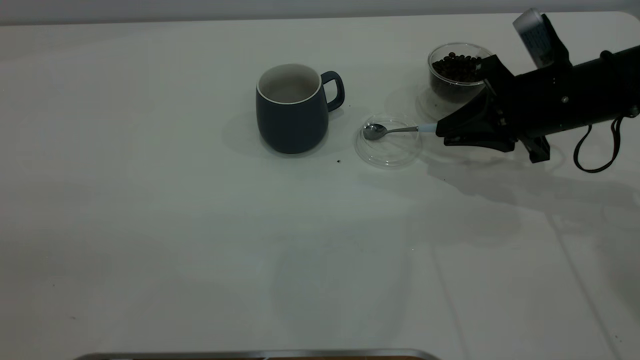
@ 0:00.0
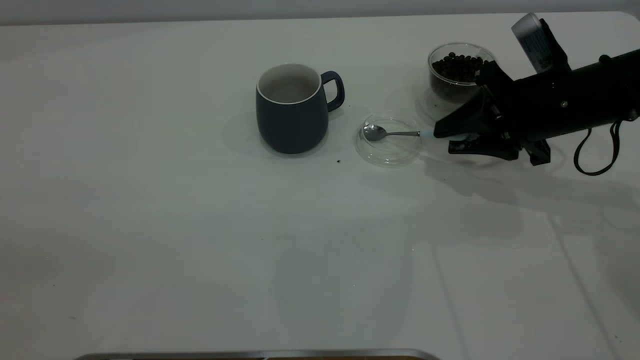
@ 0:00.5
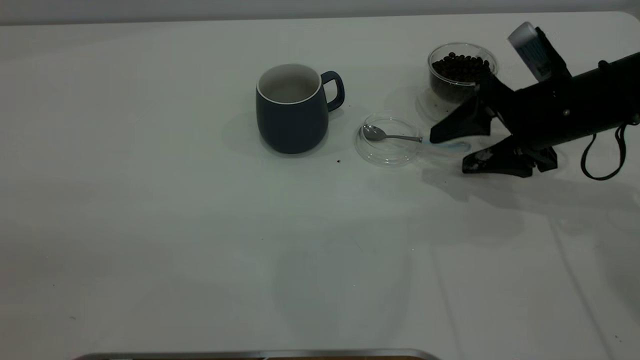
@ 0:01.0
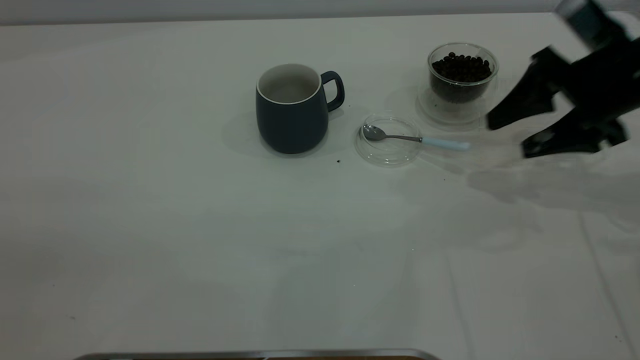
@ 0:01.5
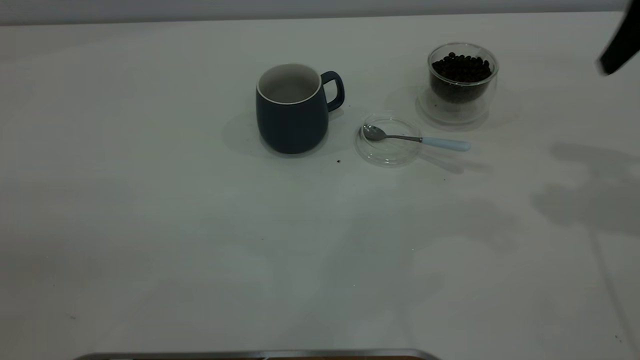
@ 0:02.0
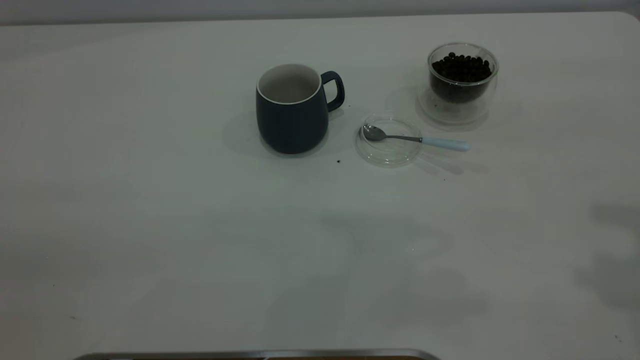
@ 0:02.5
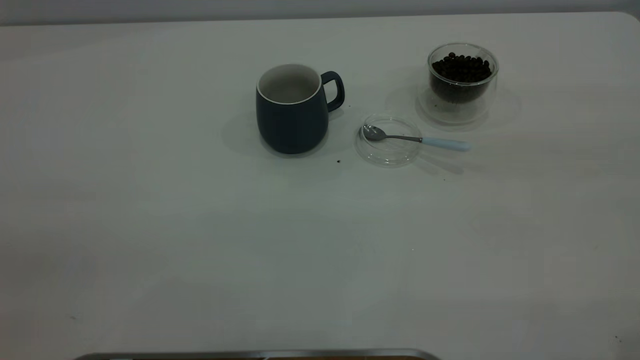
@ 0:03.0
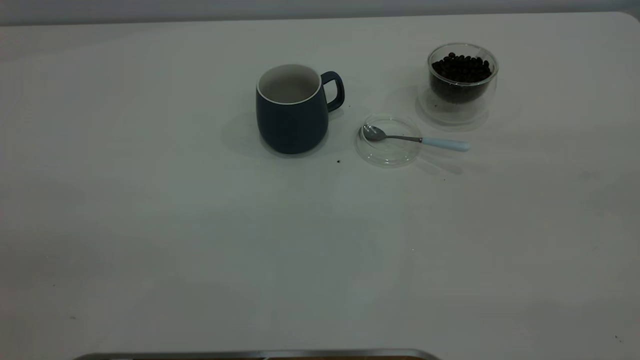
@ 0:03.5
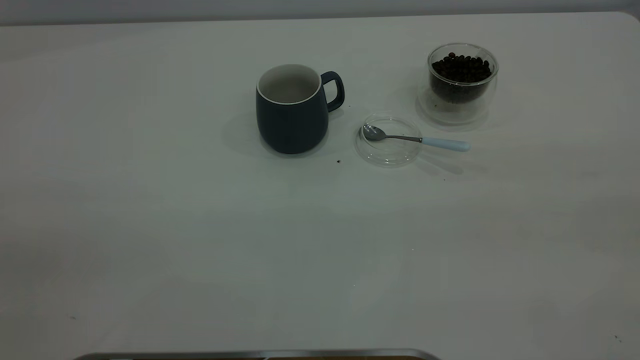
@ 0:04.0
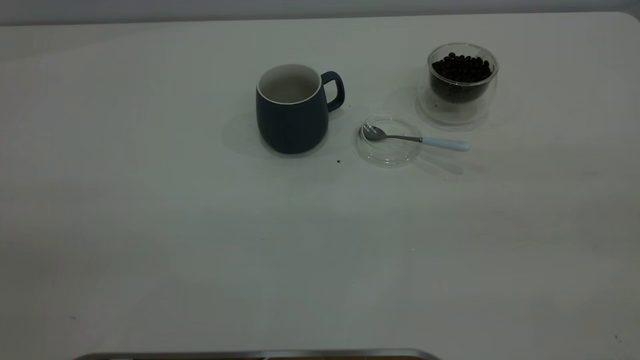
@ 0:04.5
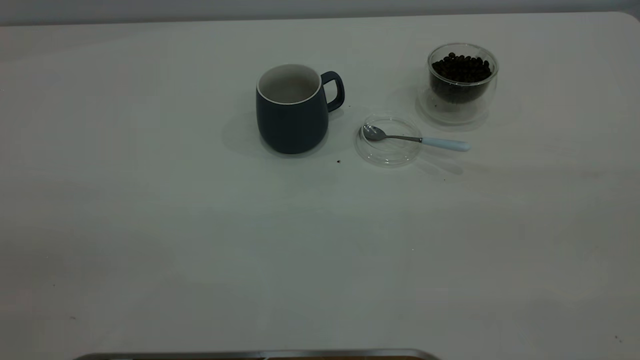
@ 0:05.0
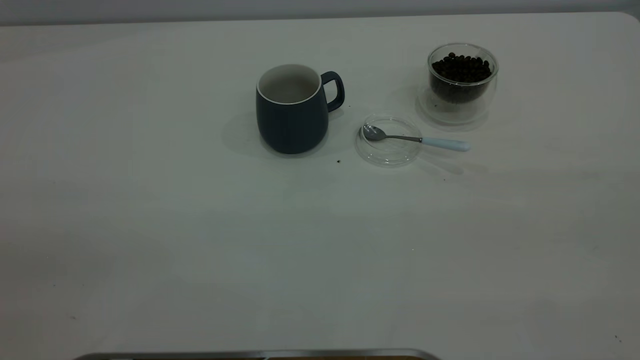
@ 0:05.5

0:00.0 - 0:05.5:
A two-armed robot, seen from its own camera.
Task of the whole recording: the left gripper place the grey cup in the center of the table, the right gripper take the blue spoon from the cup lid and scoop out the coffee beans from the coffee cup and put them into the grey cup, the right gripper put the spoon back into the cup lid.
0:00.0 - 0:02.0: The right gripper is displaced upward by approximately 20 cm, and opens its fingers.
0:02.0 - 0:03.5: The right gripper heads backward and upward, covering some 35 cm.

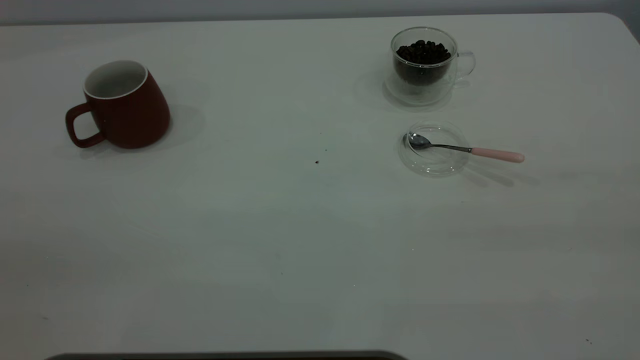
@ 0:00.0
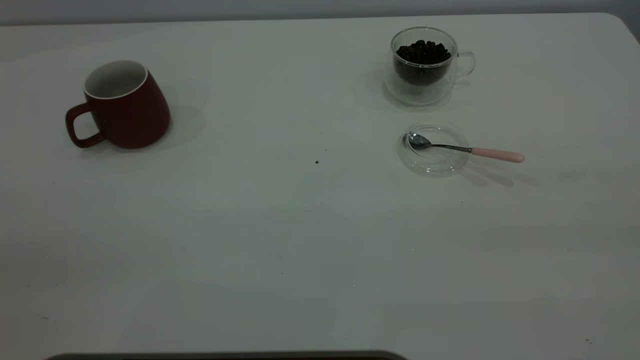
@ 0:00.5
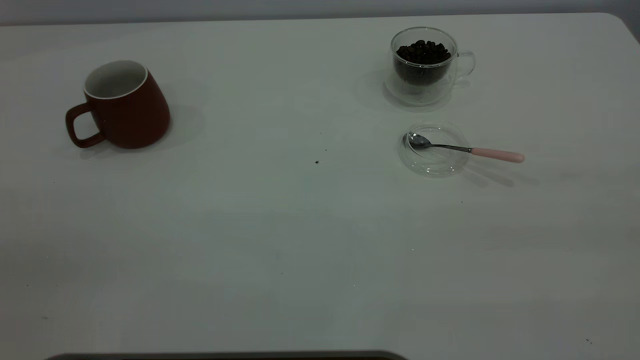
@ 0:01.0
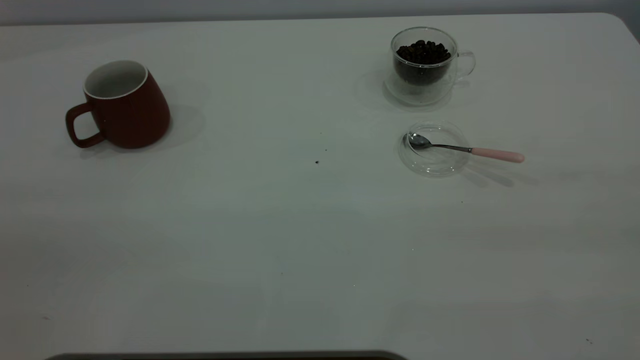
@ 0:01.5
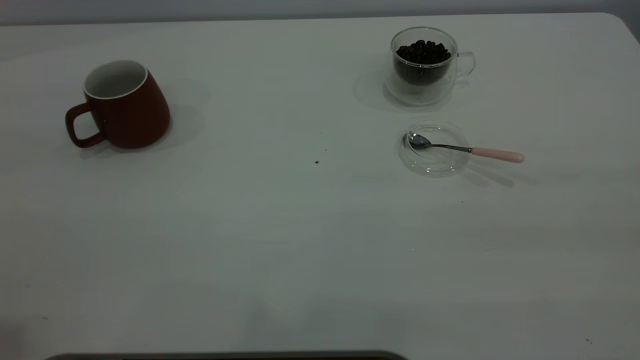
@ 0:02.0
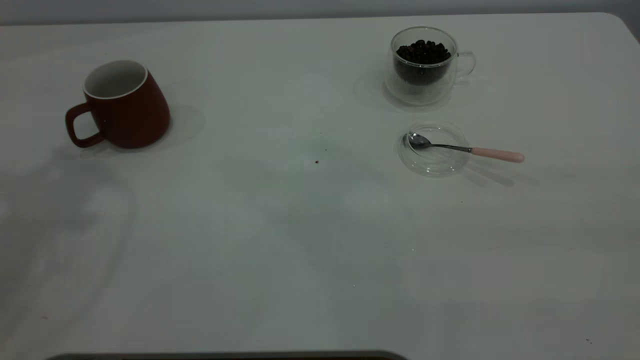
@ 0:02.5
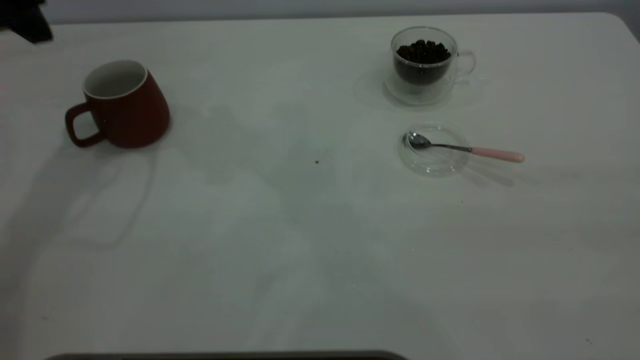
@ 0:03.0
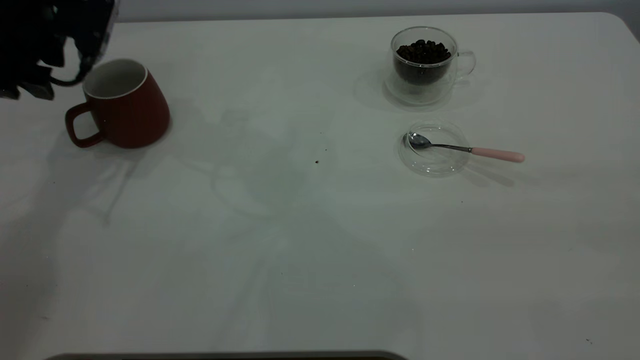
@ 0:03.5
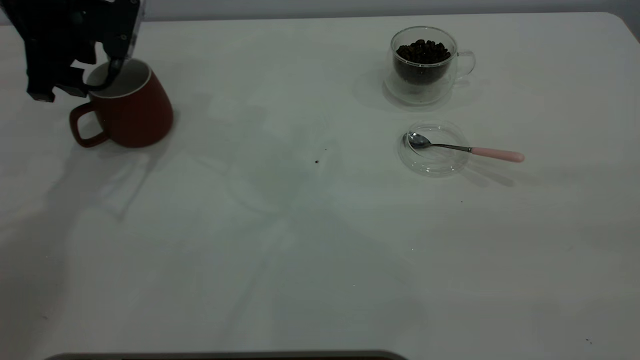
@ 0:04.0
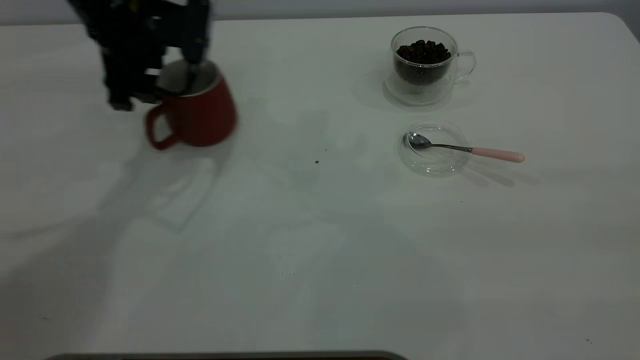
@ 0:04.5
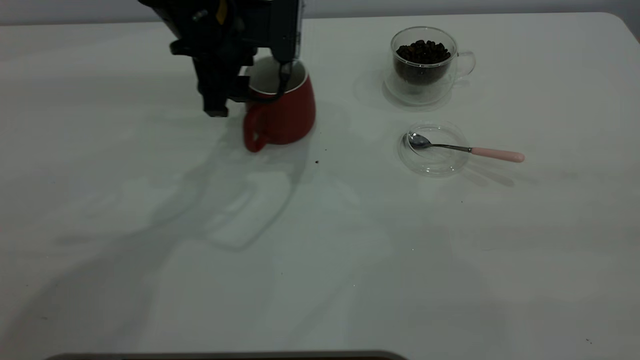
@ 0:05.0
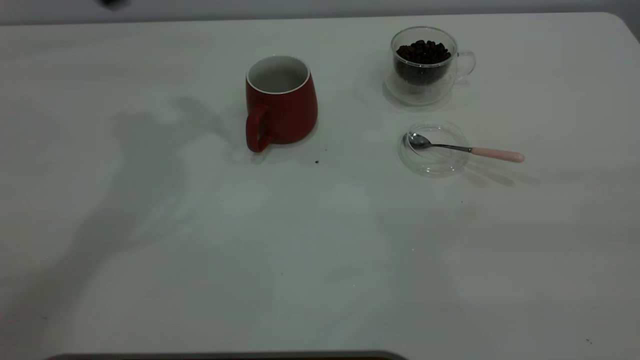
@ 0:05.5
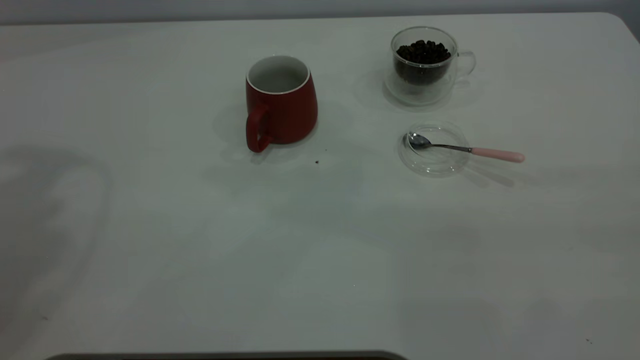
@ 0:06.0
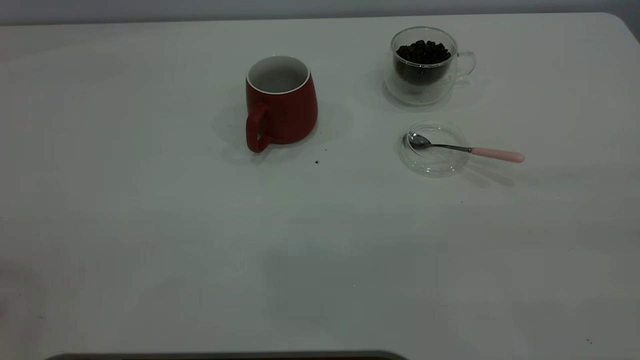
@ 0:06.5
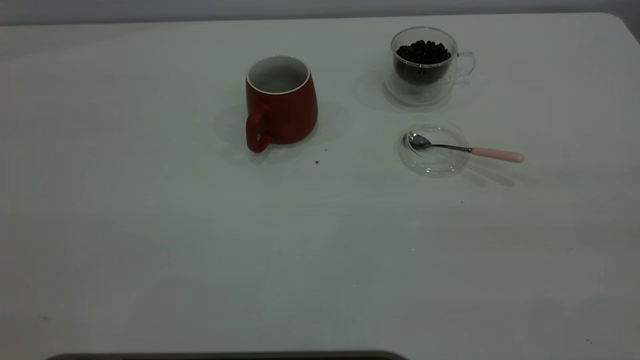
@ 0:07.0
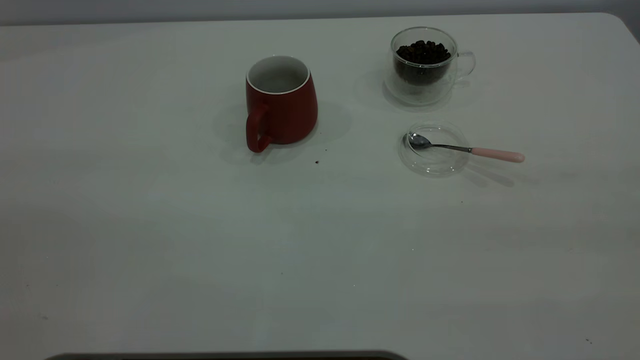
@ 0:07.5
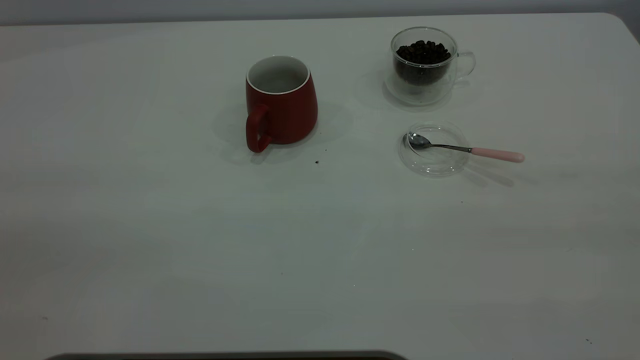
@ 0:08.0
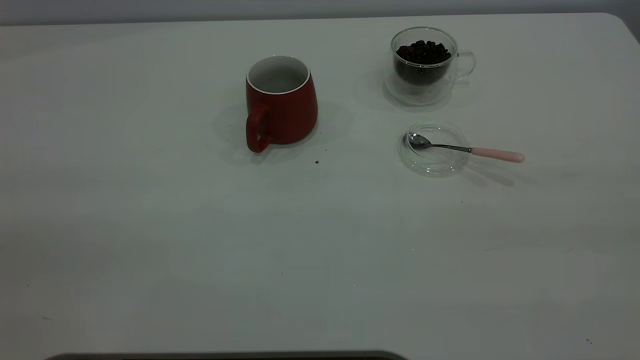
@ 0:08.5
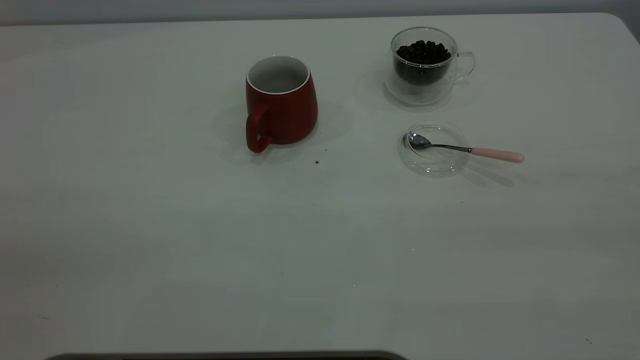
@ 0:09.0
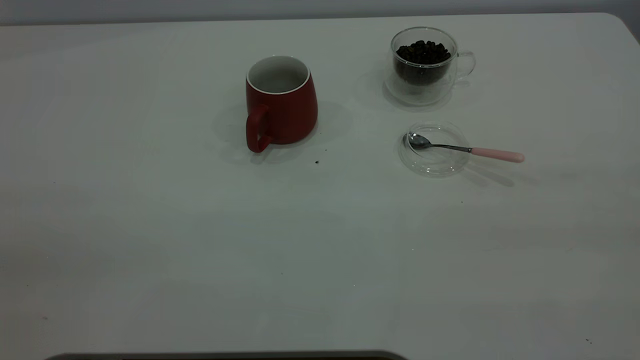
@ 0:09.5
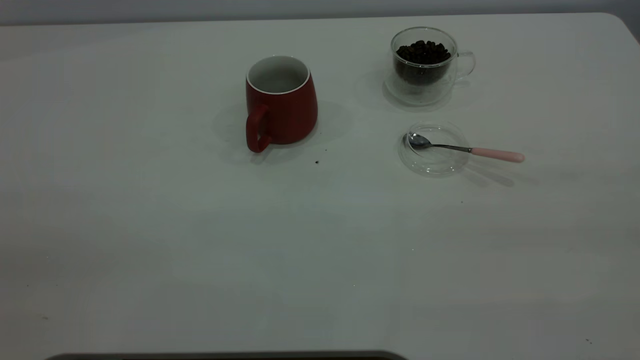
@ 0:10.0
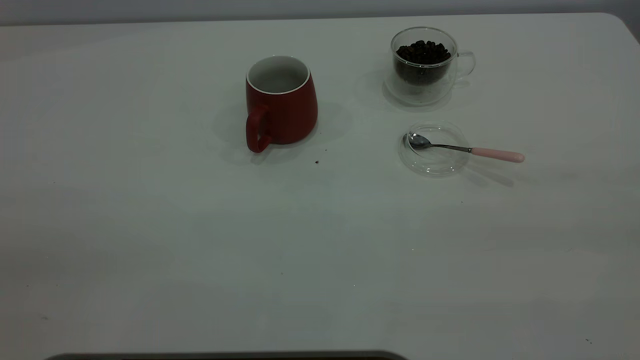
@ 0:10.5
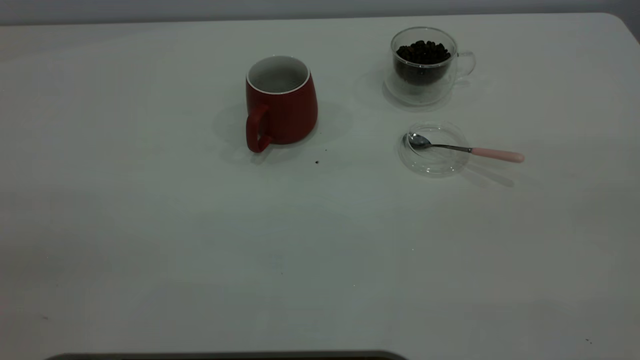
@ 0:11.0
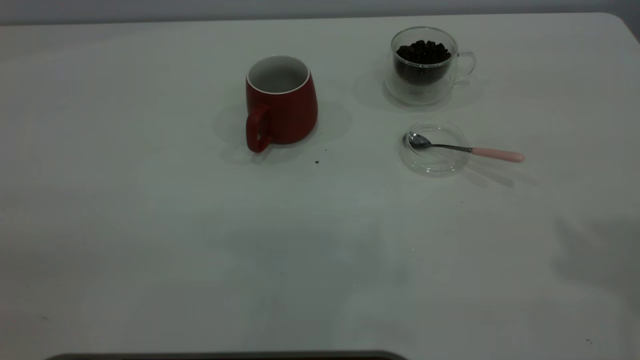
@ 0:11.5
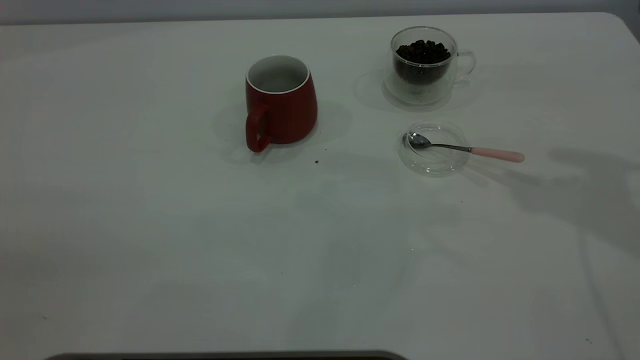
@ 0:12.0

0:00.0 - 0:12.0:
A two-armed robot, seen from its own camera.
Task of the whole recording: the left gripper place the red cup in the center of the table, the right gripper take the pink spoon from the cup lid and scoop out the coffee beans from the coffee cup and put them into the red cup, the right gripper put the spoon back into the cup lid.
Step, 0:00.0 - 0:05.0: Move the cup to the center of view.
0:02.0 - 0:04.0: The left gripper heads forward and downward, covering some 40 cm.
0:04.0 - 0:06.0: The left gripper travels upward and backward by roughly 35 cm.

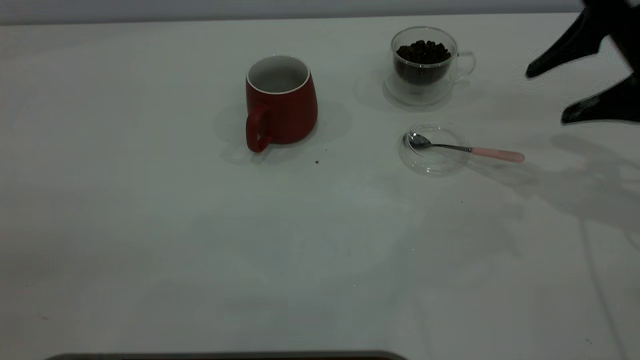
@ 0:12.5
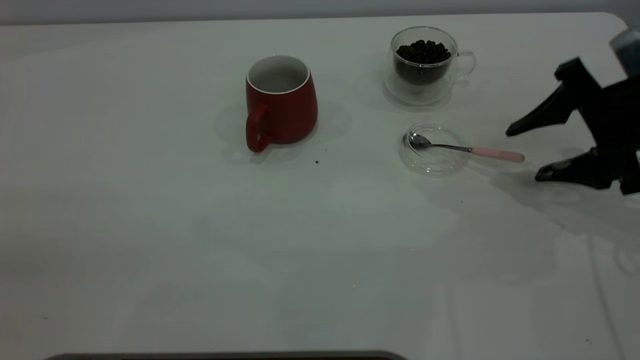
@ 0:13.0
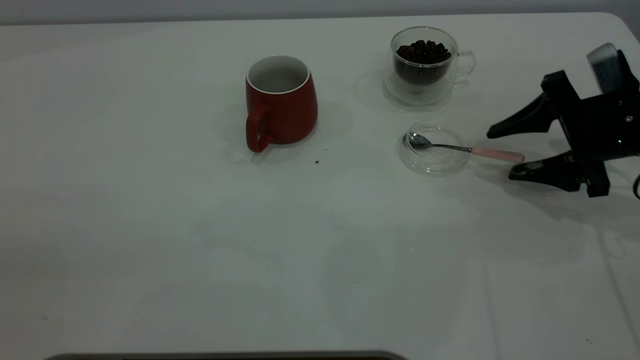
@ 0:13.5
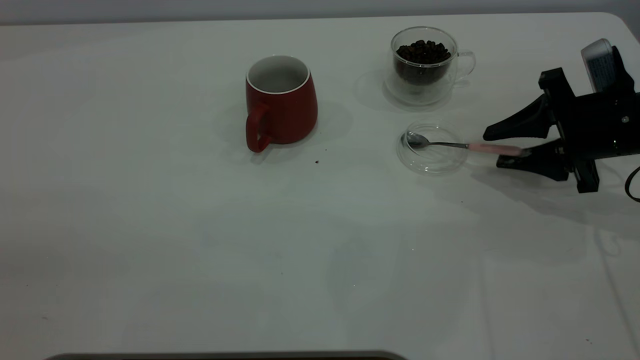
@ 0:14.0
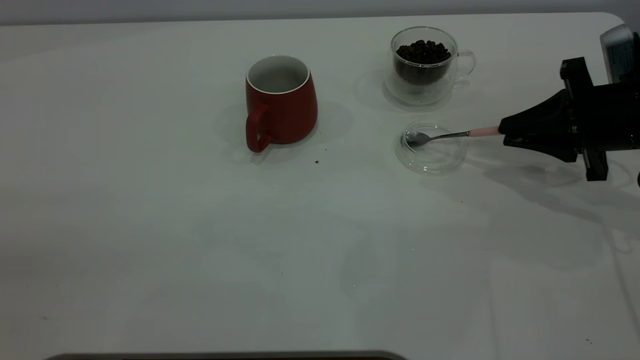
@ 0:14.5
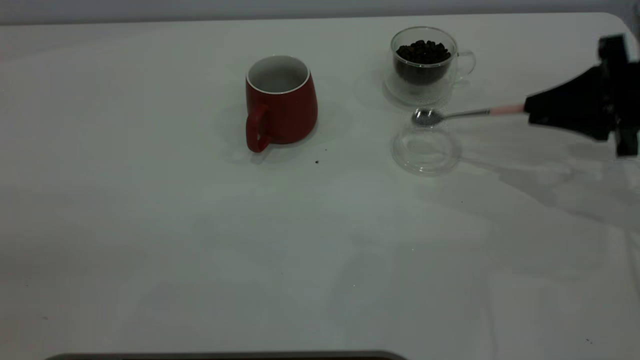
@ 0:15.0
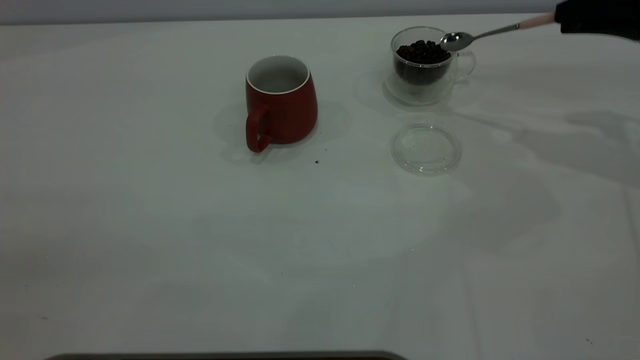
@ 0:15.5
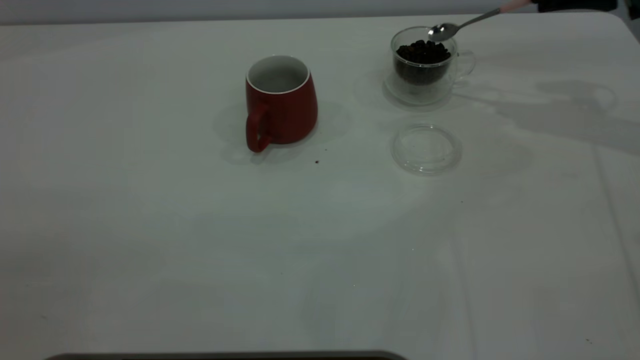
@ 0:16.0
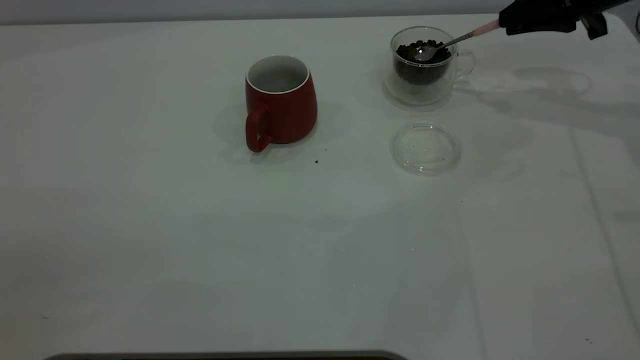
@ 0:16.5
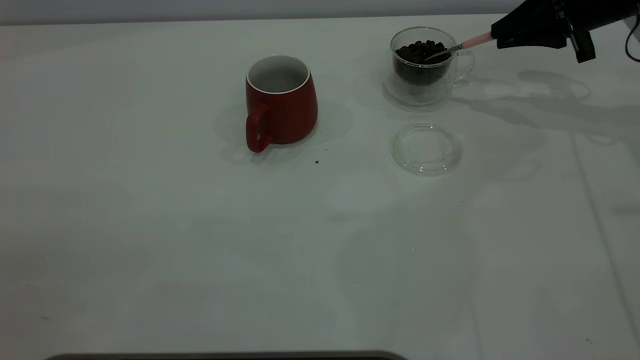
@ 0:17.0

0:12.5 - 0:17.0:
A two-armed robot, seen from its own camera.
Task of the whole recording: the left gripper place the red cup in the center of the table, the right gripper take the pink spoon from the cup lid and scoop out the coffee beans from the coffee cup and put them into the red cup, the right gripper put the spoon back into the cup lid.
Step, 0:12.5 - 0:14.5: Pick up the spoon.
0:12.5 - 0:14.5: The right gripper moves downward, approximately 10 cm, and closes its fingers.
0:14.5 - 0:17.0: The right gripper shifts approximately 15 cm forward and upward.
